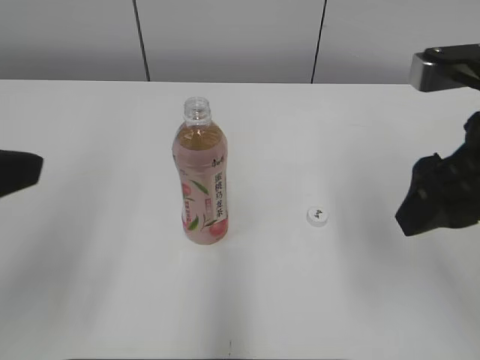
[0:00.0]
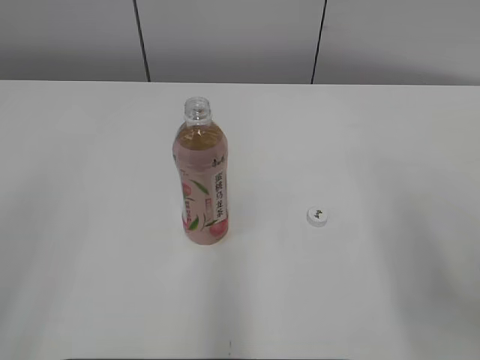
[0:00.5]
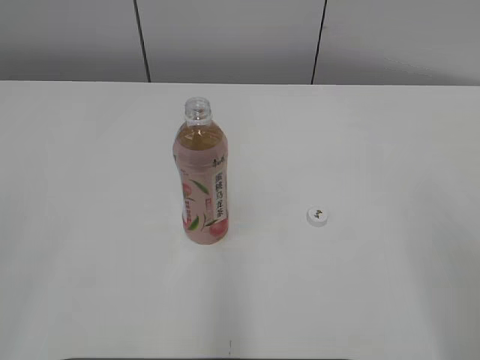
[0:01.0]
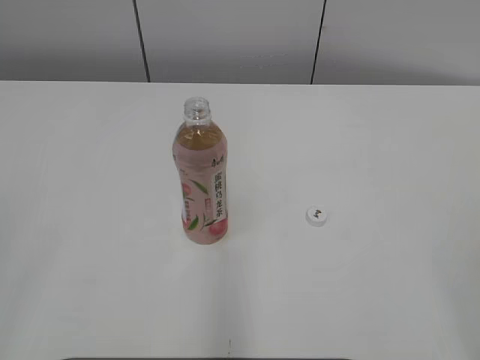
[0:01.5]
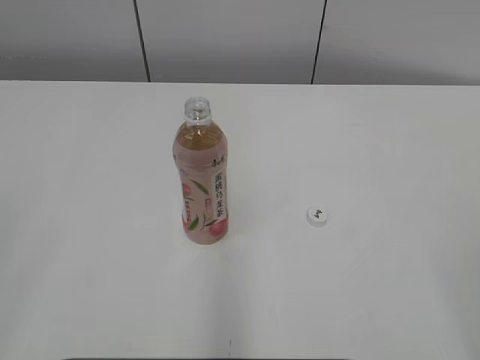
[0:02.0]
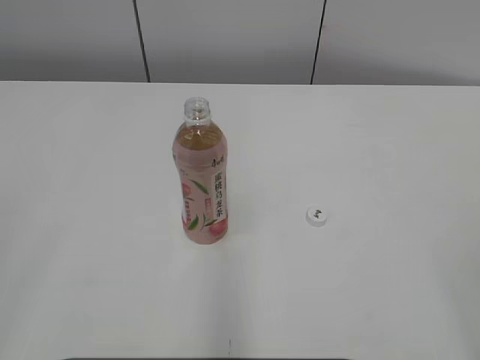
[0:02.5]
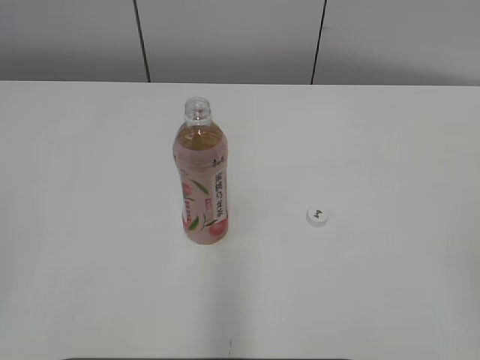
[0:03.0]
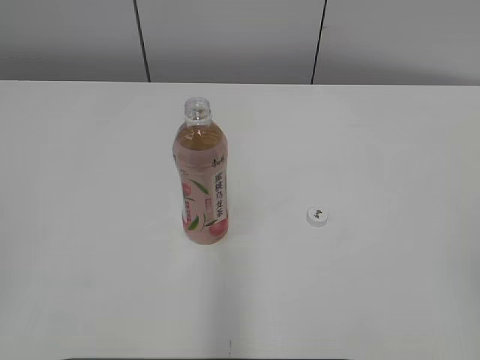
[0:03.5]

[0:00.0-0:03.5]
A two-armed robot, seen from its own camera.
0:00.0 to 0:02.0: The right gripper travels backward and to the right by approximately 25 cm. Meanwhile the left gripper heads backward and to the left, covering about 15 cm.

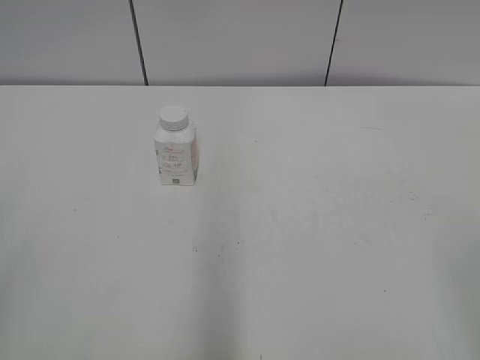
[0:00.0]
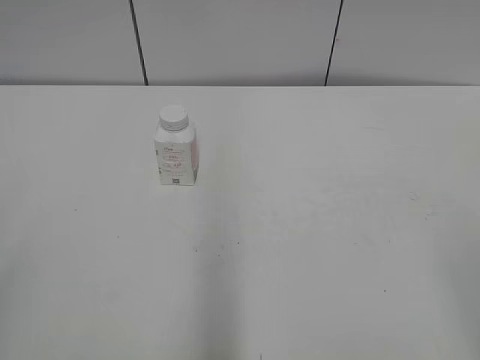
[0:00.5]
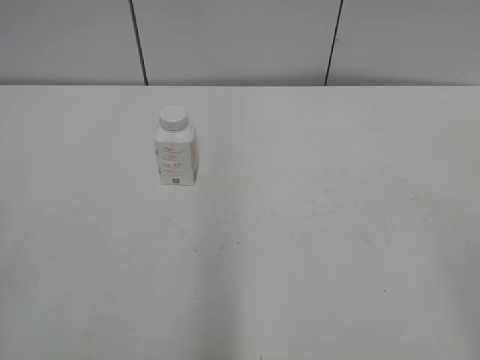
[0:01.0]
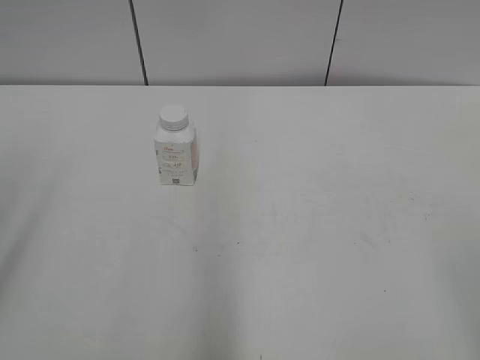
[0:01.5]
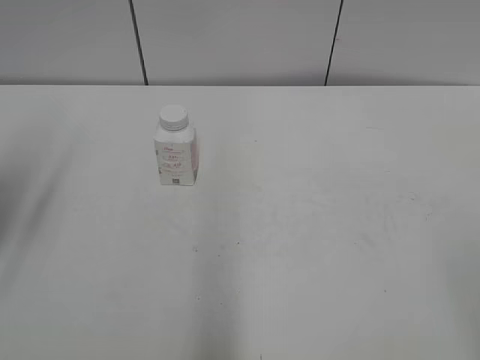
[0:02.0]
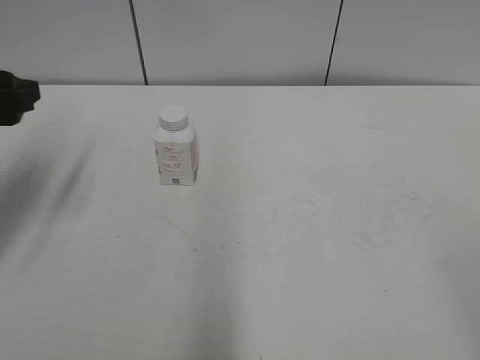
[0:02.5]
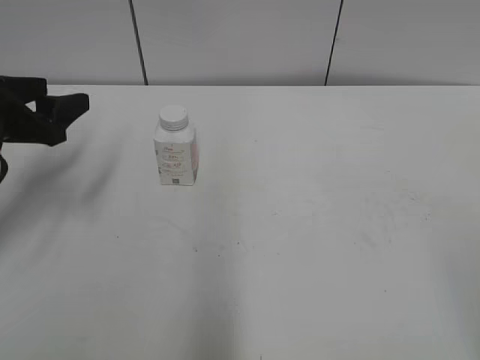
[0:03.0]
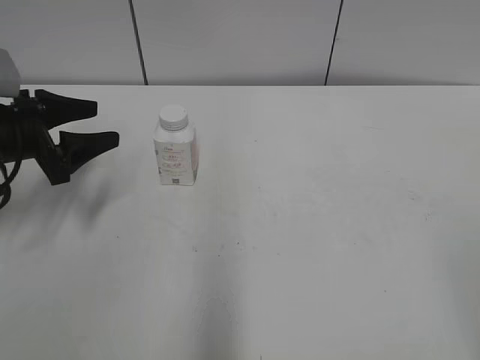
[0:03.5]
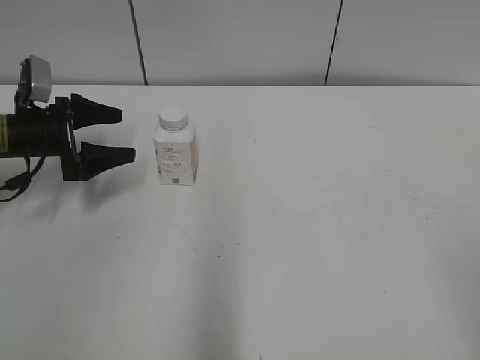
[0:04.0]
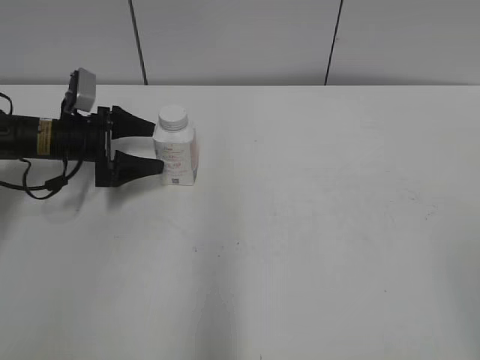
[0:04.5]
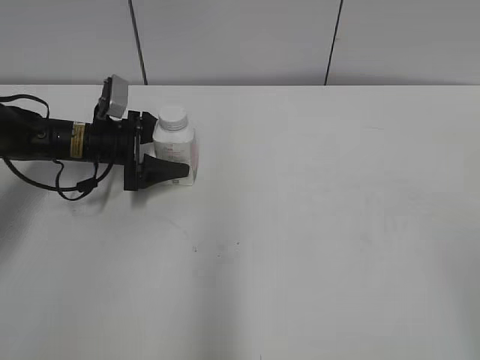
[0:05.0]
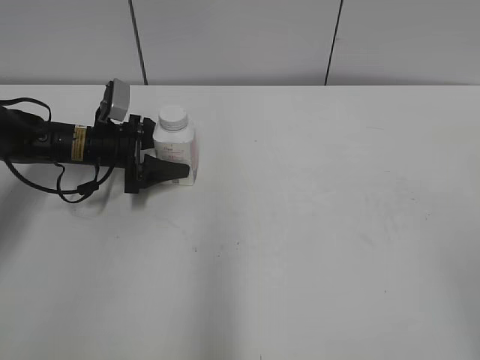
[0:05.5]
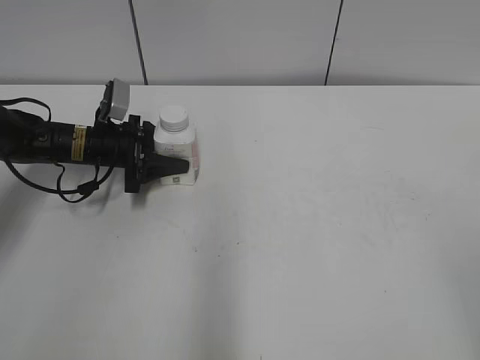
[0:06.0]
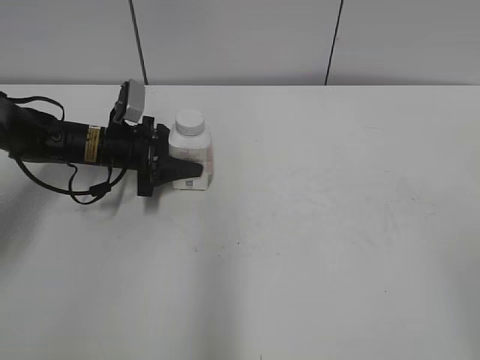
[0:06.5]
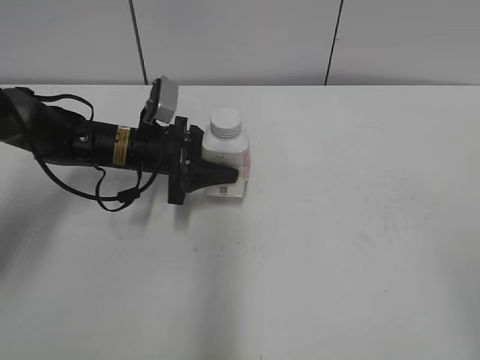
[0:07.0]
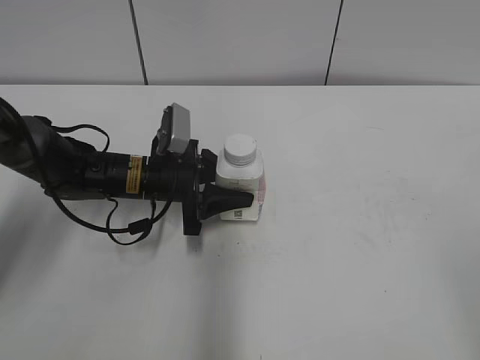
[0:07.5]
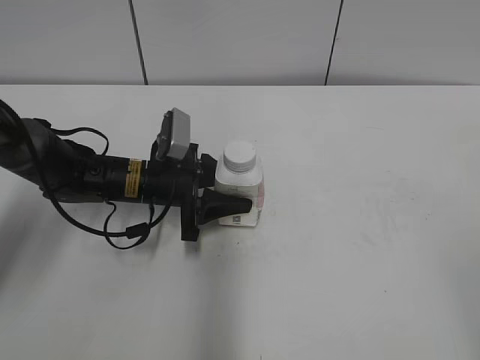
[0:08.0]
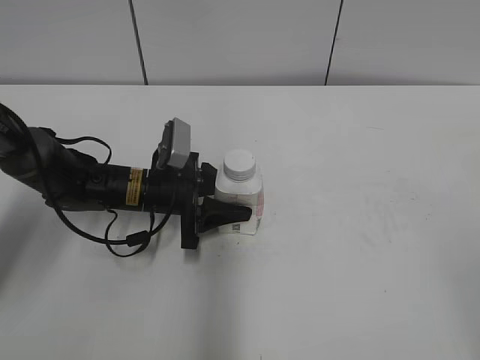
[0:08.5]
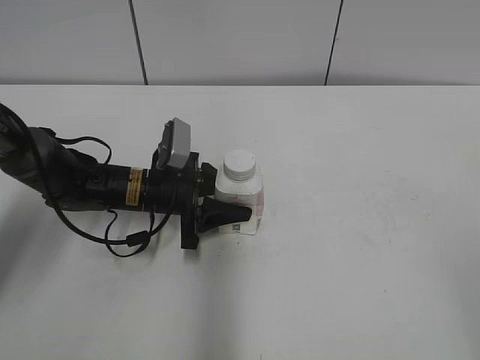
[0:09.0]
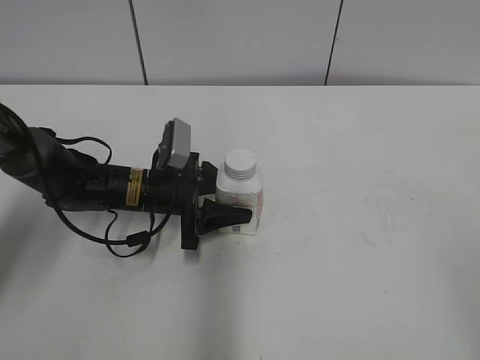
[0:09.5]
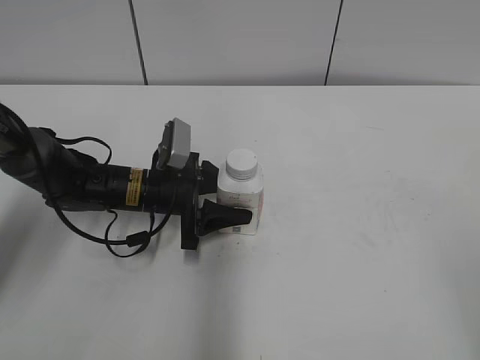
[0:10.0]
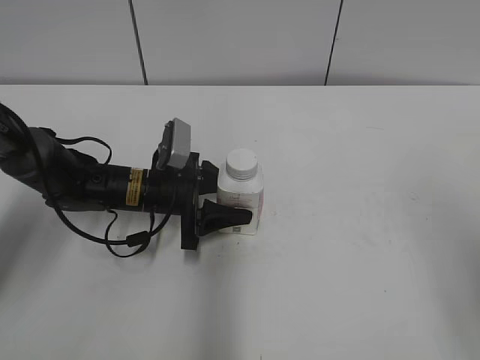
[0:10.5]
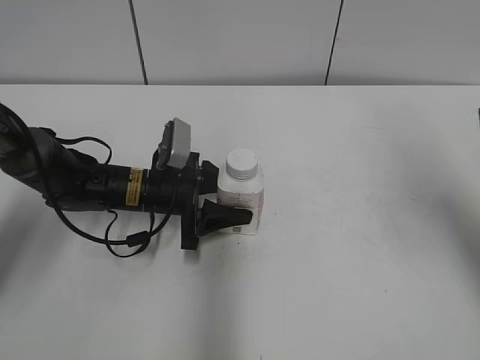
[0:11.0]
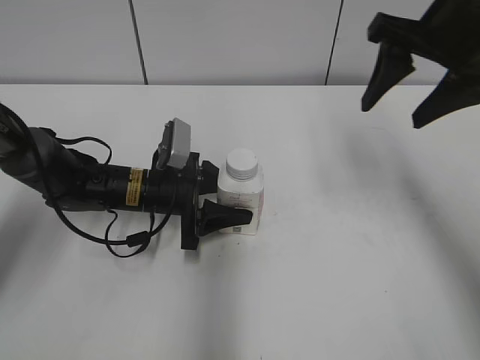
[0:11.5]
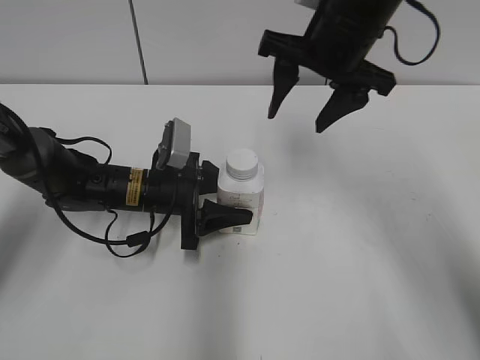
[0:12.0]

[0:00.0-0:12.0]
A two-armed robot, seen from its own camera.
Step, 0:00.0 to 0:06.0: Grasp the bottle and move it to the center of the table with the left gripper.
Step, 0:06.5 to 0:08.5: Lift the bottle and move it to the center of the table with the left gripper.
0:02.0 to 0:04.0: The left gripper moves downward and forward, roughly 25 cm, and opens its fingers.
0:04.0 to 0:06.0: The left gripper shifts about 10 cm to the right and downward, and closes.
0:06.0 to 0:08.0: The left gripper shifts roughly 10 cm to the right and backward.
0:08.0 to 0:10.0: The two grippers keep their place.
0:10.0 to 0:12.0: The right gripper shifts about 40 cm forward and to the left.

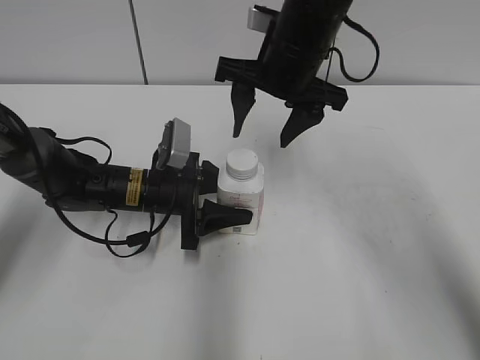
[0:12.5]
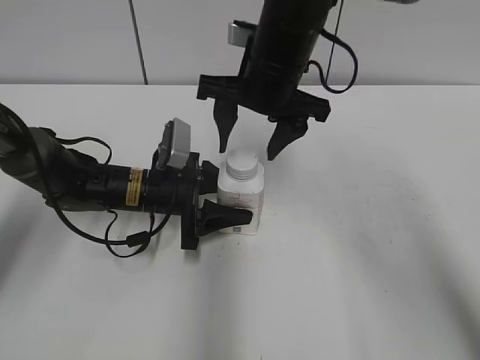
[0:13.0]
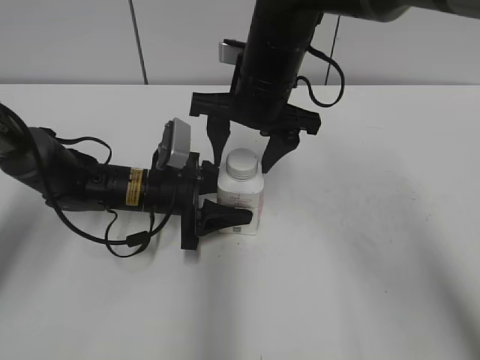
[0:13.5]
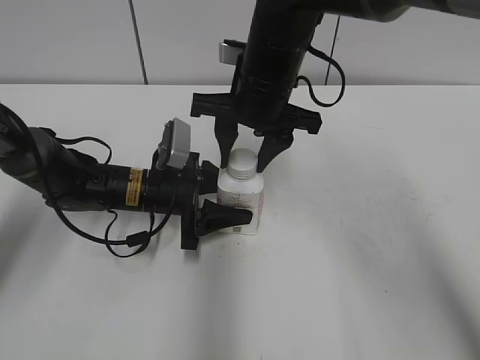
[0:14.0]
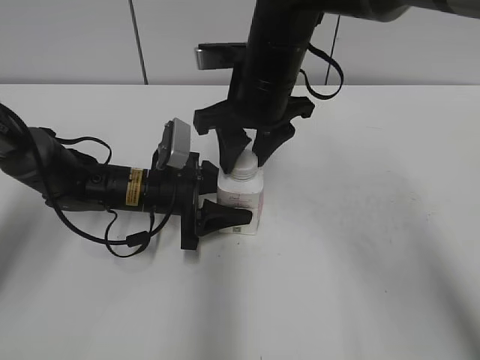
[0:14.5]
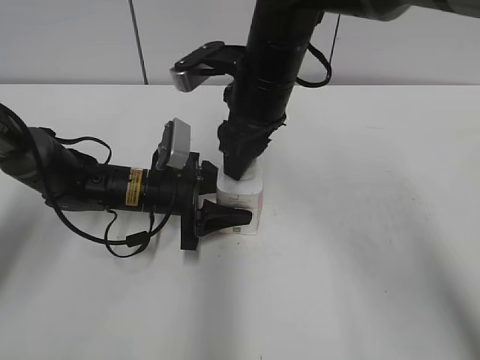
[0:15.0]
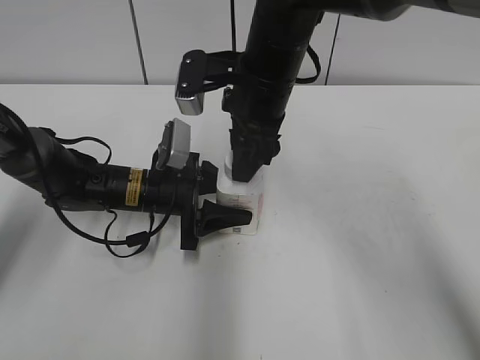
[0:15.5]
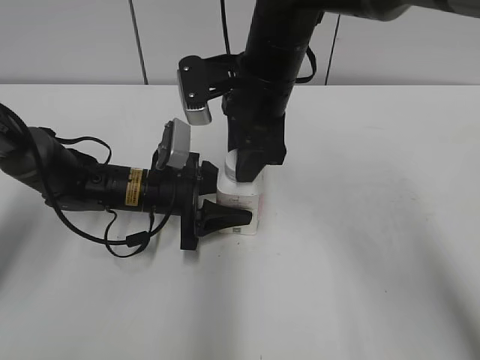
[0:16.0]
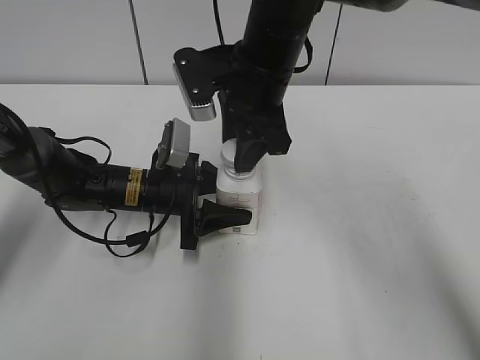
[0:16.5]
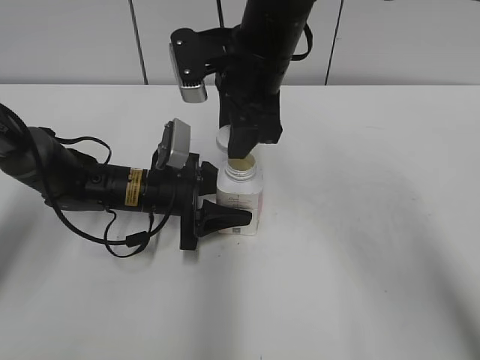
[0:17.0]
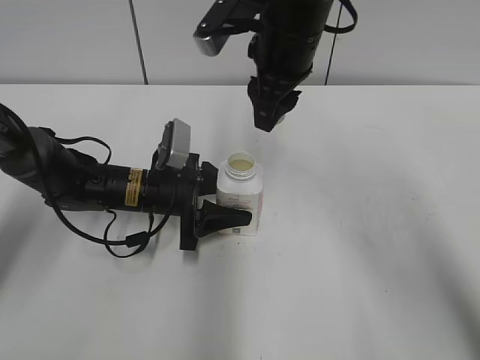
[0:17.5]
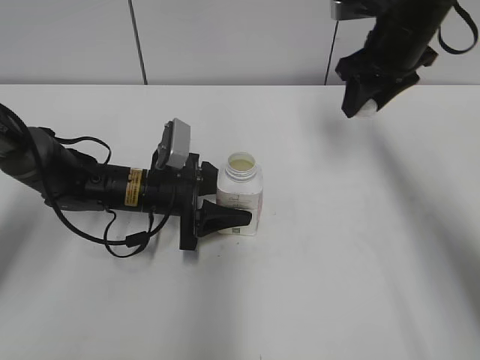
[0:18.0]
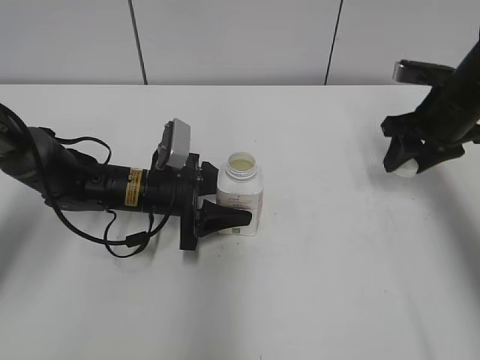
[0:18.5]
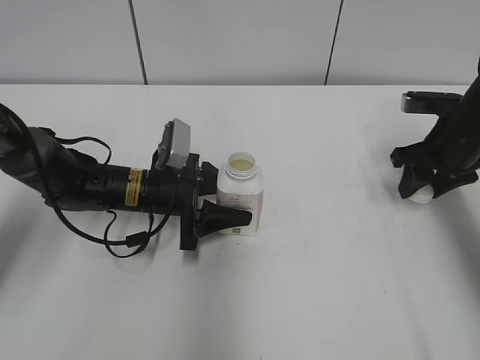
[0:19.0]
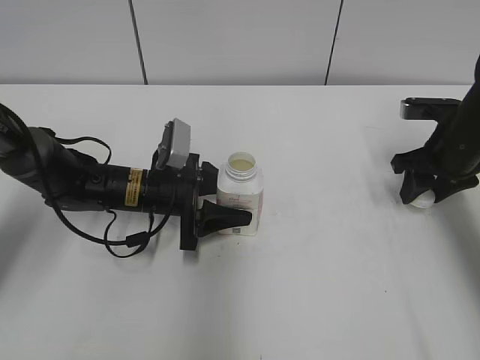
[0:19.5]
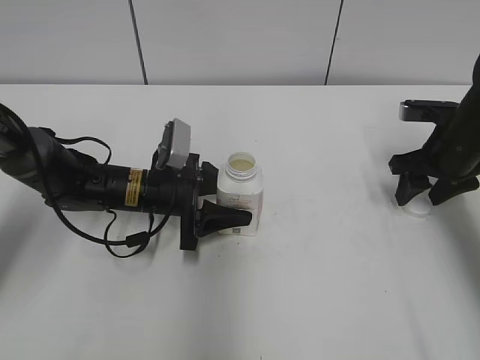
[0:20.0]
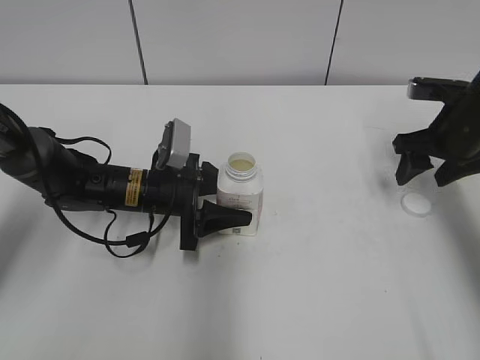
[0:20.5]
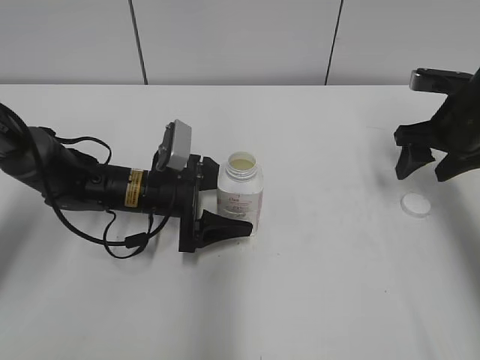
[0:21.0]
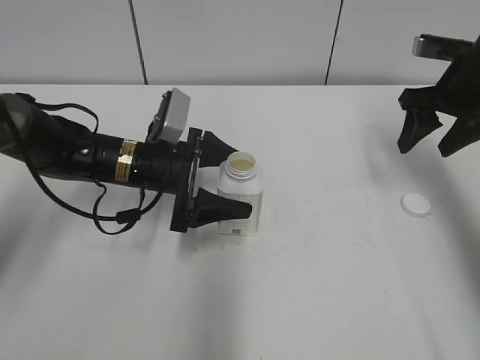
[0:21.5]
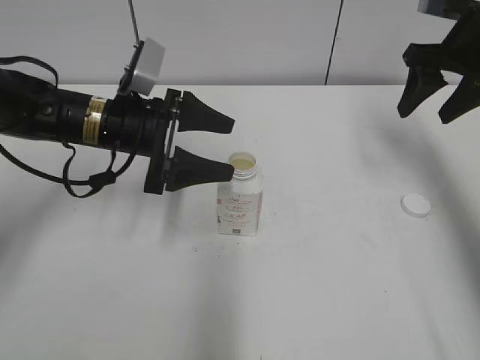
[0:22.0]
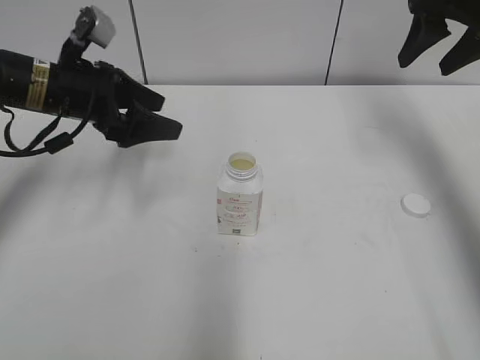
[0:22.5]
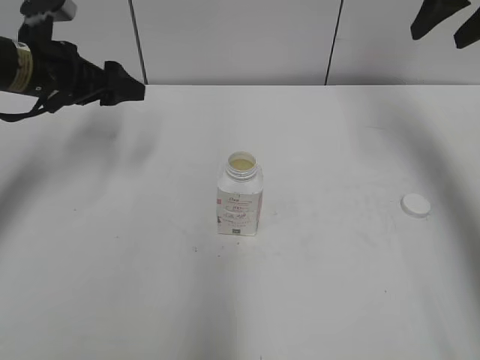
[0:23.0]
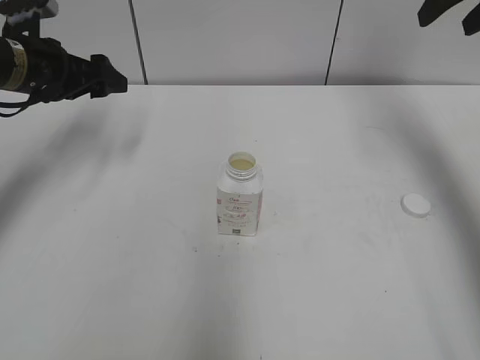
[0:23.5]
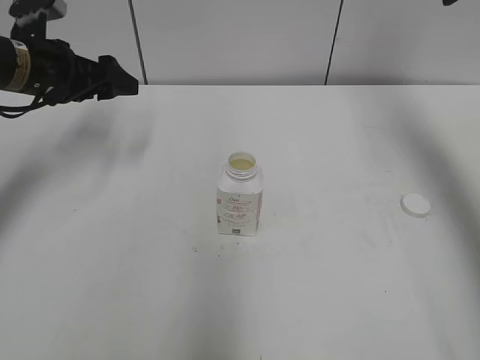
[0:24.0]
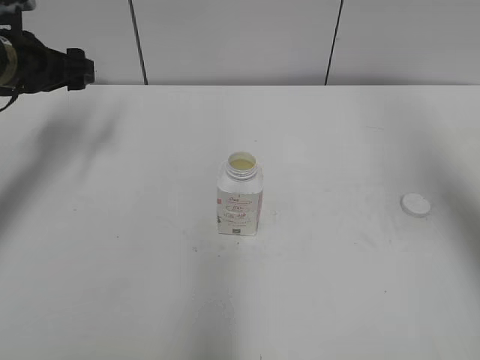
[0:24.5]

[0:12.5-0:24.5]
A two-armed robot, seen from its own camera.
Step, 0:12.5 to 0:17.0: Unscrew the bottle cap with the right gripper while holding the bottle with the left gripper.
Step, 0:17.5 to 0:20.0: Place the bottle cap on the table with the right gripper.
Step, 0:20.5 to 0:21.5: Place the bottle on the table with the left gripper.
0:12.5 to 0:14.5: The right gripper closes up.
0:16.5 to 0:18.5: The right gripper goes roughly 25 cm to the right.
0:18.5 to 0:20.5: The right gripper opens up.
0:20.5 to 0:22.5: The right gripper moves upward, some 15 cm; the left gripper travels upward and to the left by about 15 cm, and opens.
0:22.5 to 0:24.5: The left gripper goes roughly 5 cm to the left. The right gripper moves backward and upward, some 20 cm.
